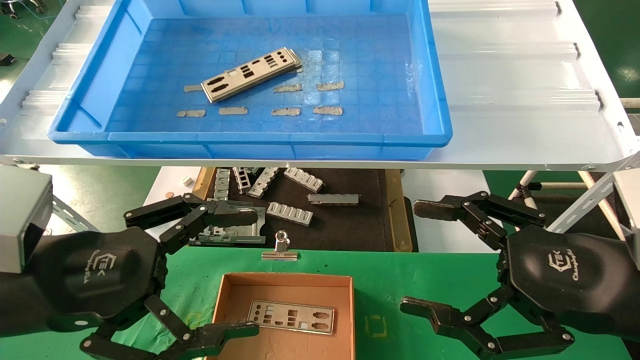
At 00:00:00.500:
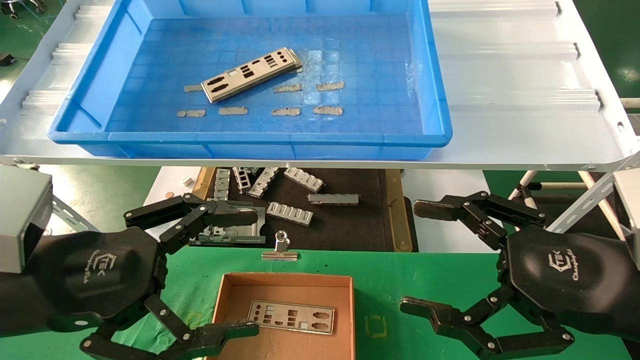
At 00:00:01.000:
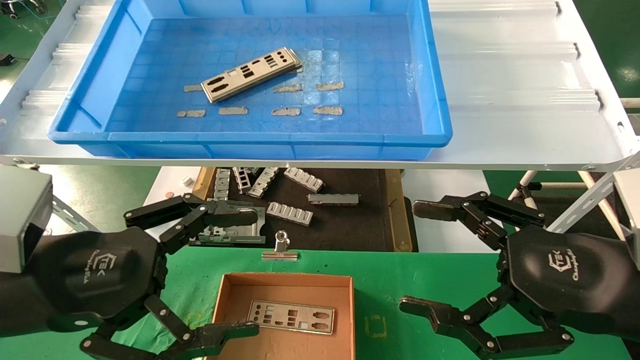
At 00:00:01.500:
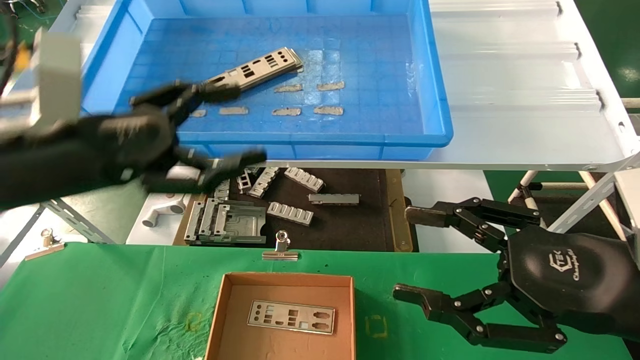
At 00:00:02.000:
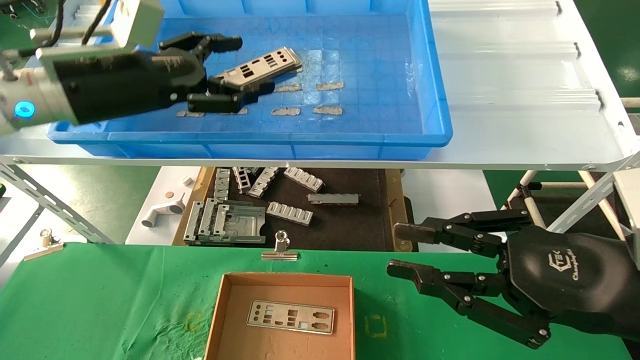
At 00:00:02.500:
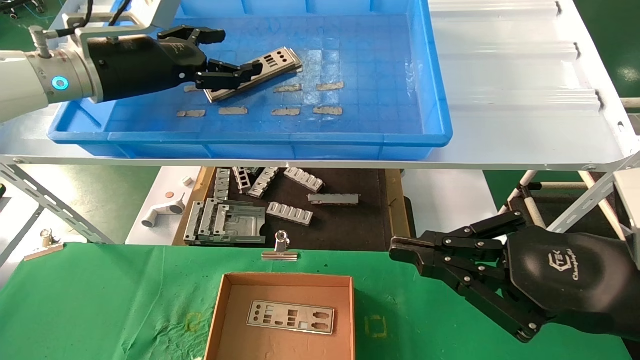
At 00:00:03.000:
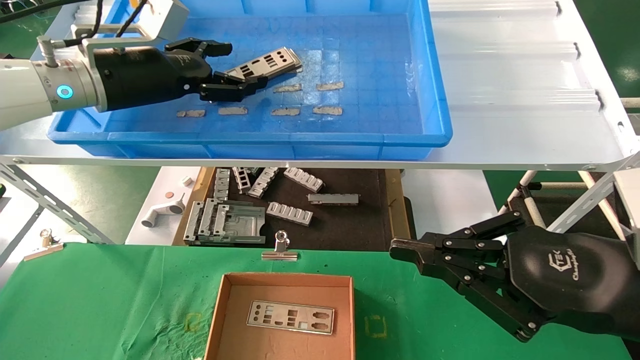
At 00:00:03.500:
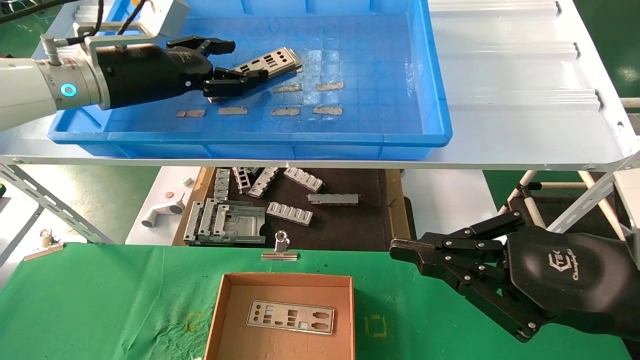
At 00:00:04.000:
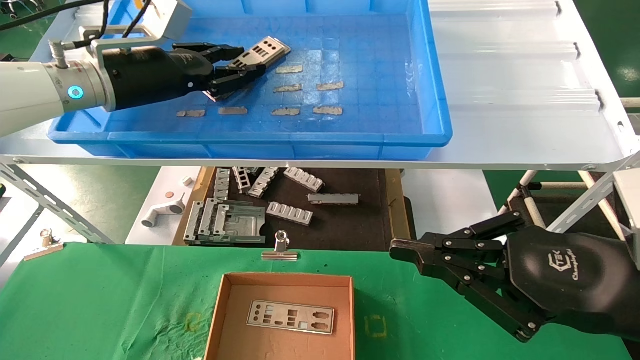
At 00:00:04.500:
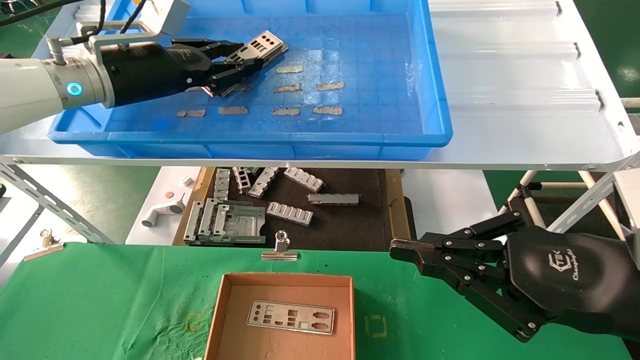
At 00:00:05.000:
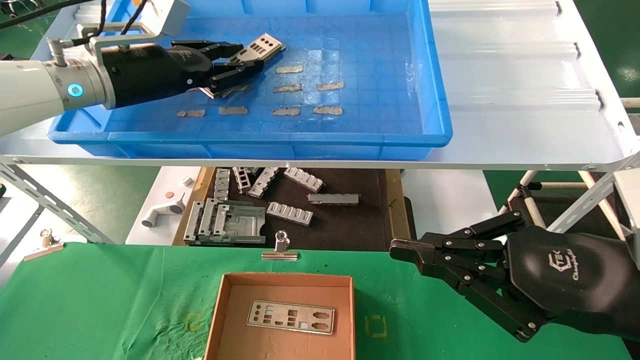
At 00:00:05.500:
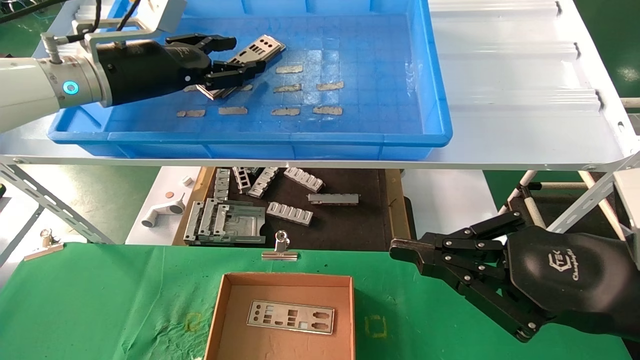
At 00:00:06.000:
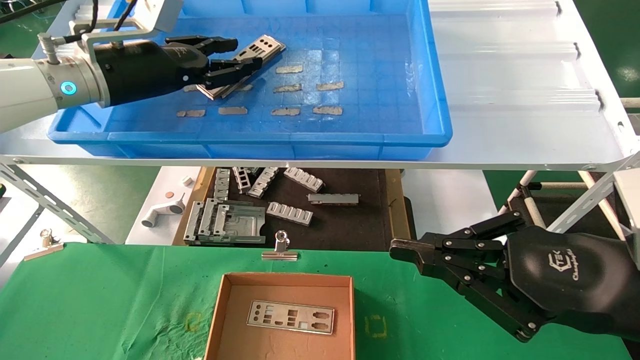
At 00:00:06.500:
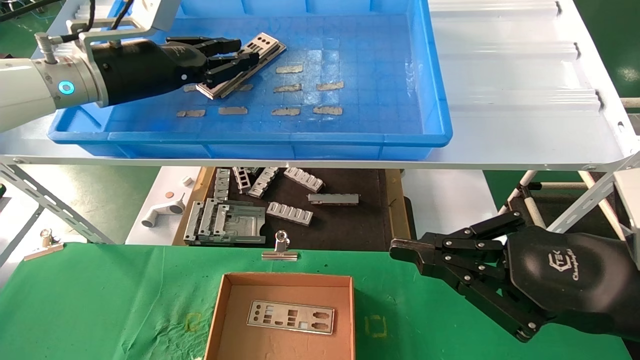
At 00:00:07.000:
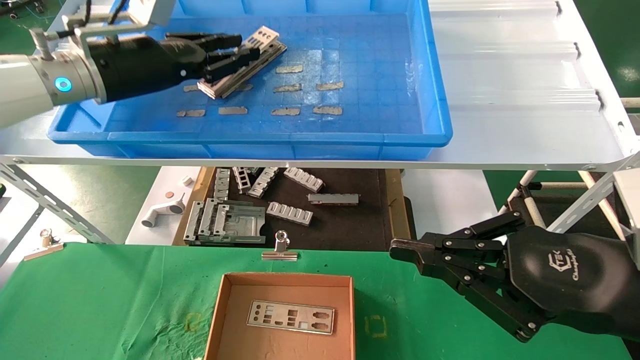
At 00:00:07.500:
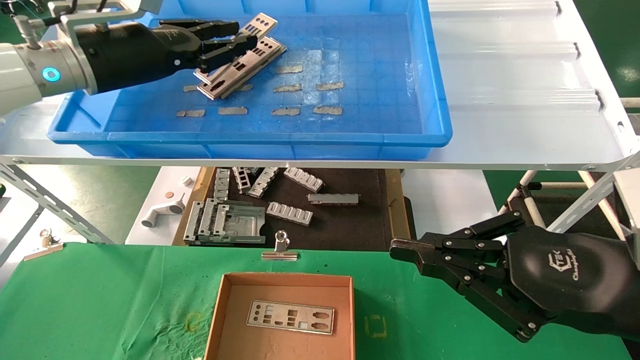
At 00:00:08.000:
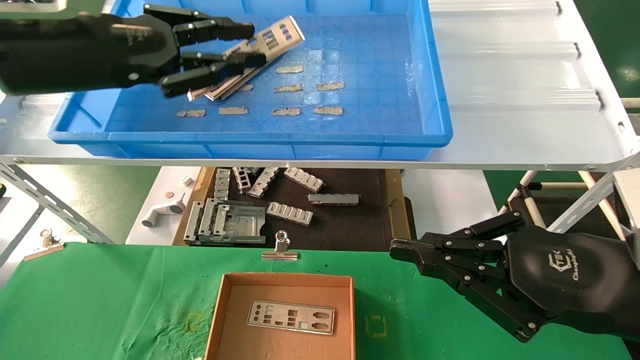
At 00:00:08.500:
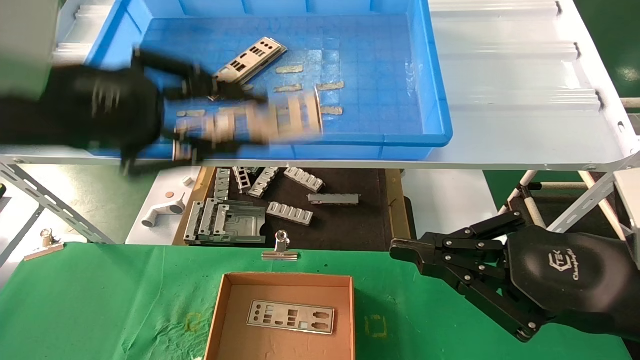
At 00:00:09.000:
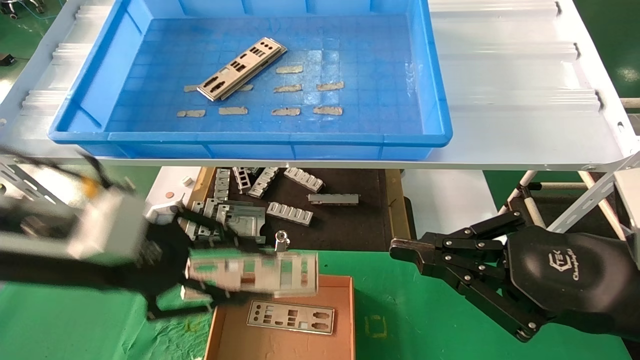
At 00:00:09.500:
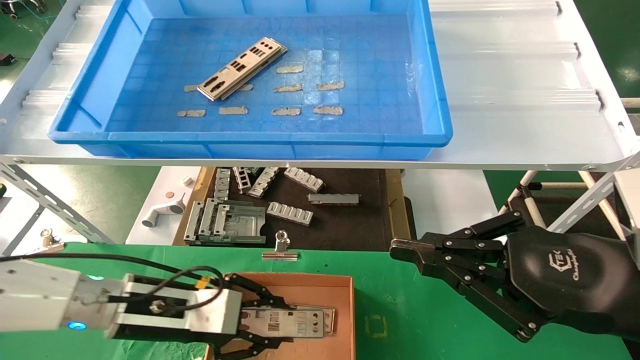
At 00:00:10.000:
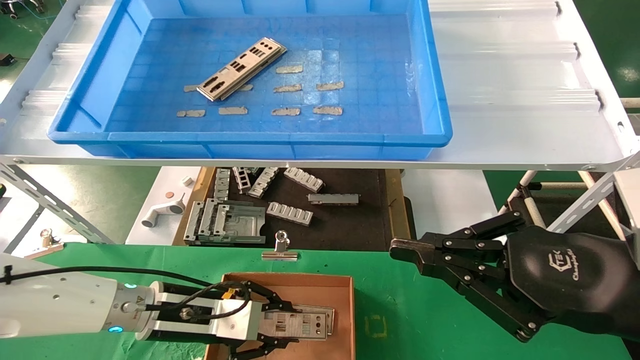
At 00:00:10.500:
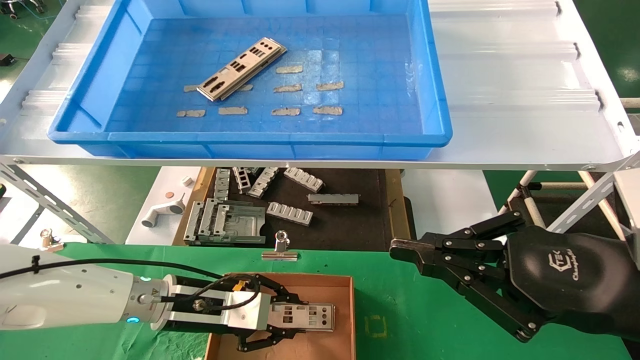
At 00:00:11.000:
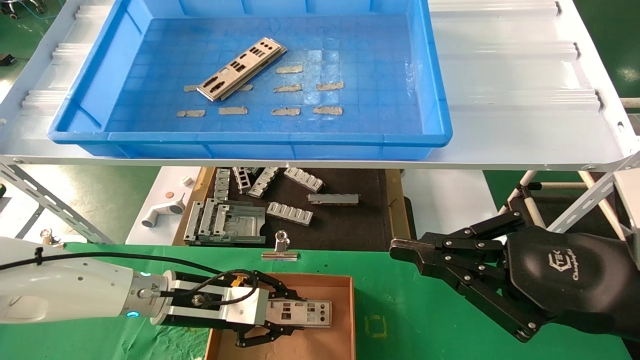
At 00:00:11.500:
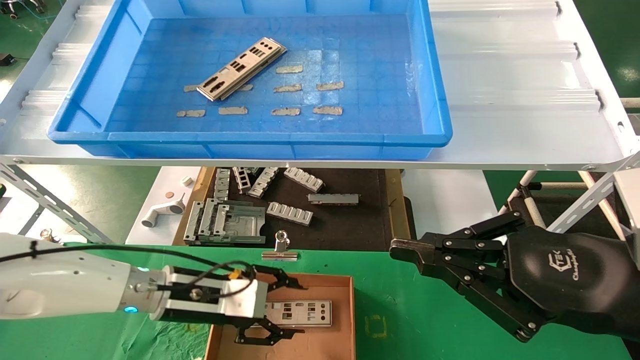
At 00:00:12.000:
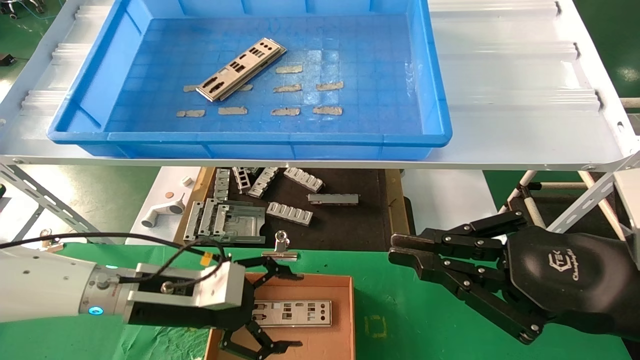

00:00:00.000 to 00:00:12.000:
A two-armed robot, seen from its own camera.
Task of the whole recording: pick up the parts on the tray and put them in the cardboard box.
Step, 00:00:01.500 to 00:00:06.500: Pick up the IO bracket from the container box.
Step, 00:00:07.000 to 00:00:11.000: Place the IO bracket into the ingredient slot.
00:00:00.000 to 00:00:02.000: The right gripper closes up; the left gripper is displaced forward and upward by some 20 cm.
00:00:02.000 to 00:00:04.000: The right gripper closes. The left gripper heads forward, covering about 5 cm, and closes its fingers.
00:00:04.000 to 00:00:06.000: Both grippers stay about where they are.
00:00:06.000 to 00:00:08.000: The left gripper goes approximately 10 cm backward, and closes.
00:00:08.000 to 00:00:10.000: The left gripper goes about 30 cm downward.
00:00:10.000 to 00:00:12.000: The left gripper opens up.

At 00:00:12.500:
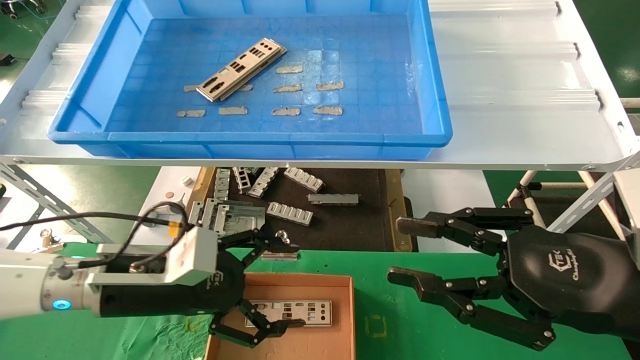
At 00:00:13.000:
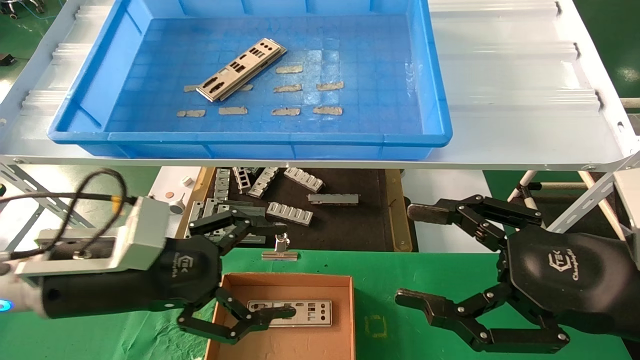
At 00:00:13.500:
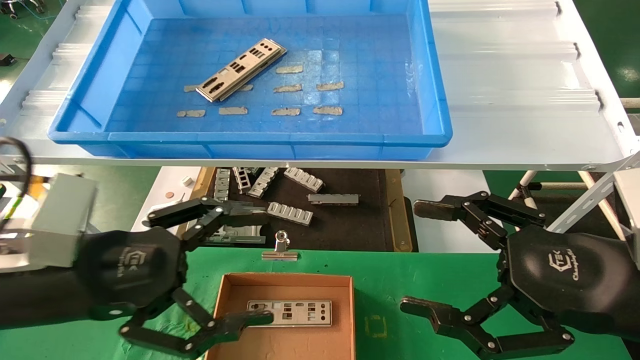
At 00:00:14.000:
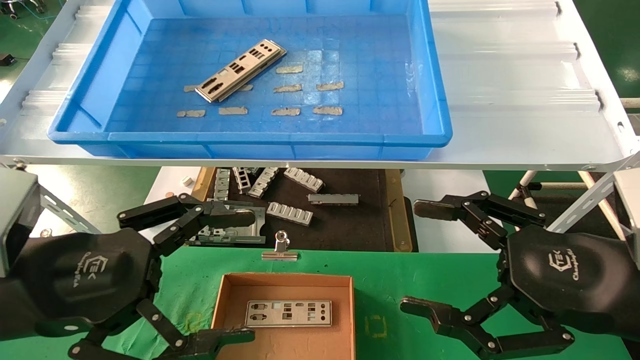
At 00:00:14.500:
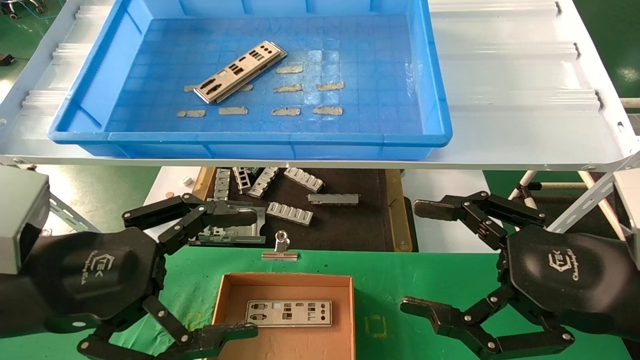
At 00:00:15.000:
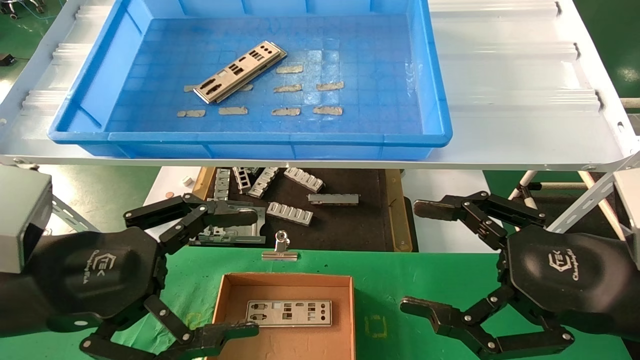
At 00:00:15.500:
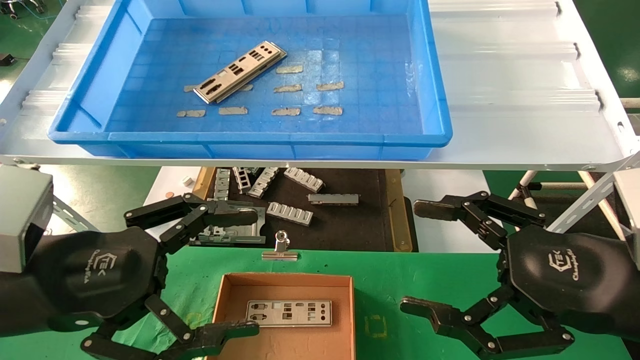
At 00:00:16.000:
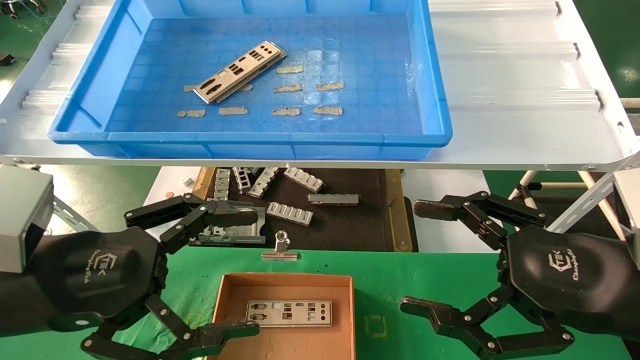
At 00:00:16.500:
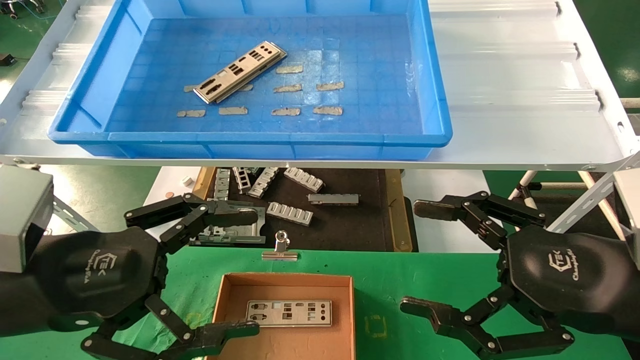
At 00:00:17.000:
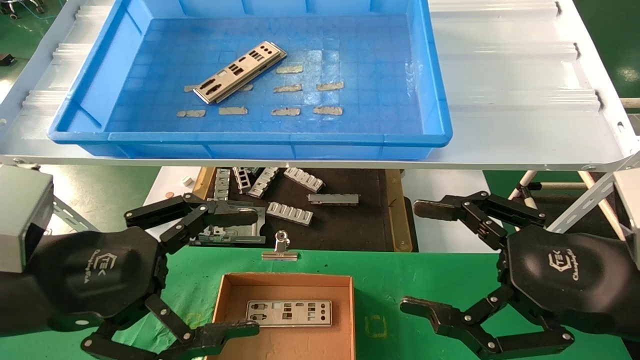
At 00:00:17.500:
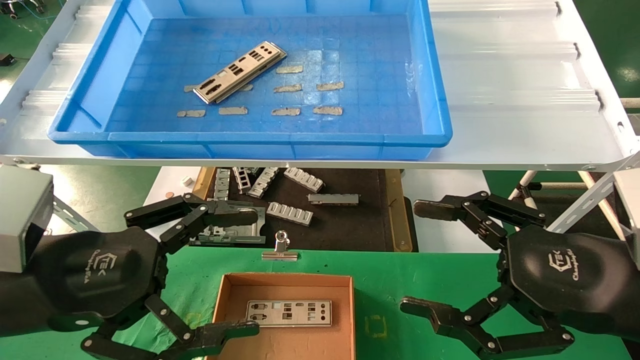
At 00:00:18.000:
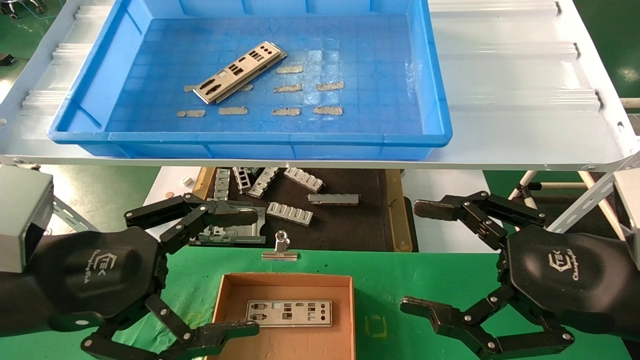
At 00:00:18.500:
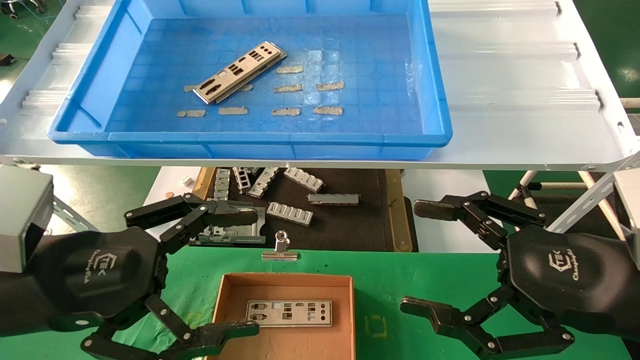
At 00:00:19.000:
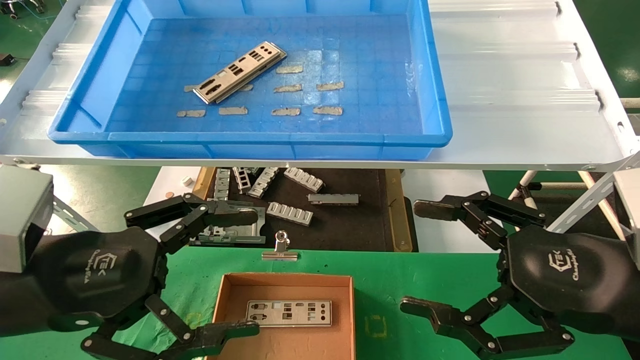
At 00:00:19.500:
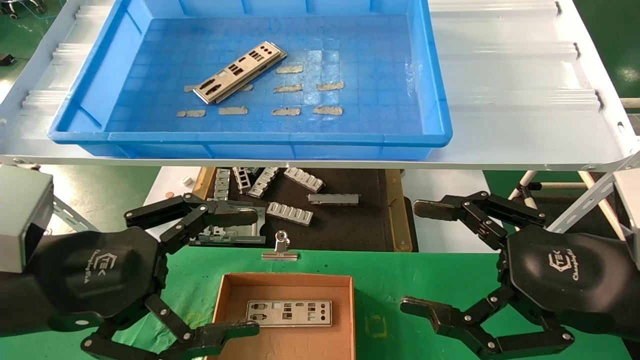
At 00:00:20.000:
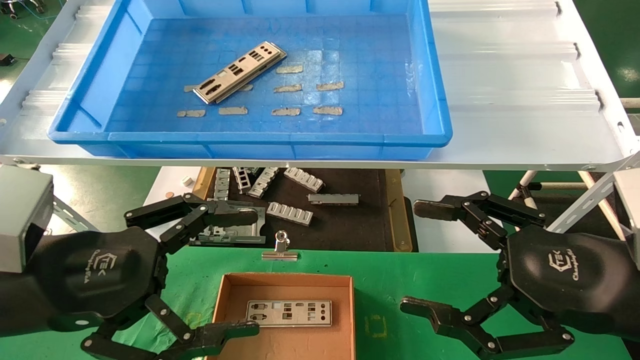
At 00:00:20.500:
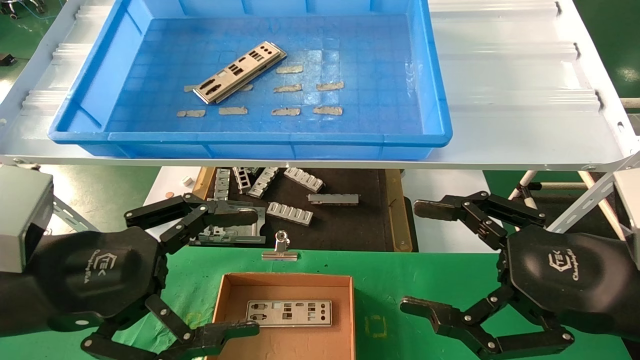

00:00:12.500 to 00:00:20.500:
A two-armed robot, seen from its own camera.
Task of the whole recording: pick up the parts on the tray and put them in the cardboard box.
00:00:12.500 to 00:00:14.500: The left gripper travels backward and upward by roughly 15 cm; the right gripper opens up.
00:00:14.500 to 00:00:20.500: The two grippers keep their place.
